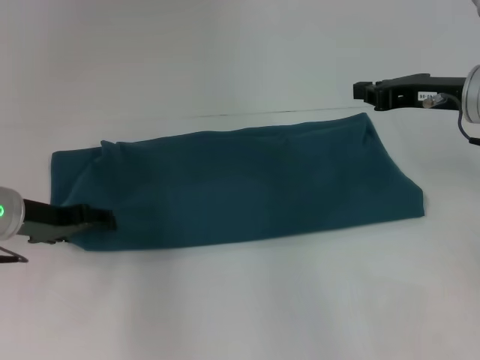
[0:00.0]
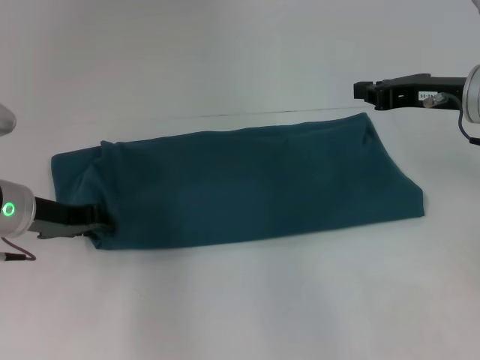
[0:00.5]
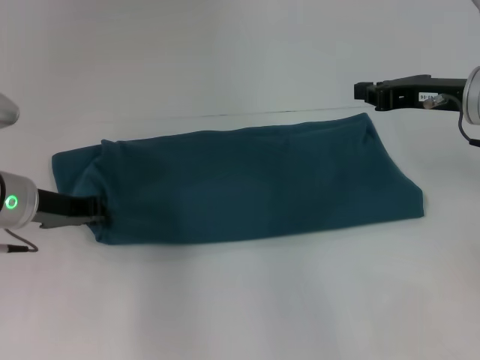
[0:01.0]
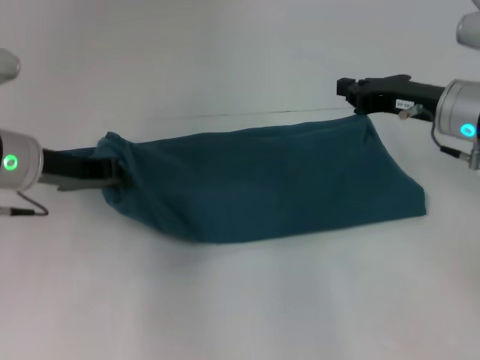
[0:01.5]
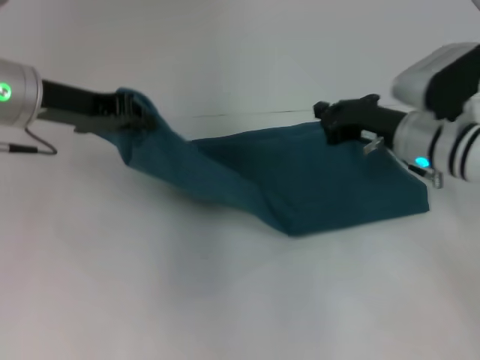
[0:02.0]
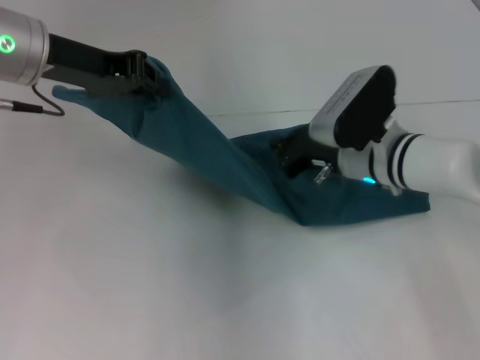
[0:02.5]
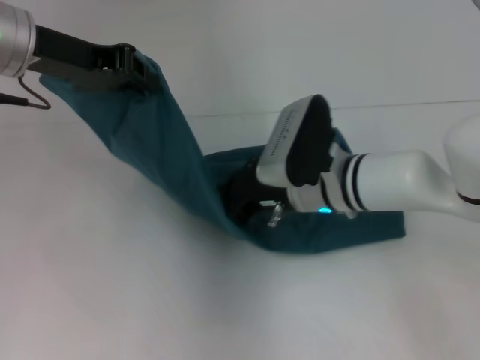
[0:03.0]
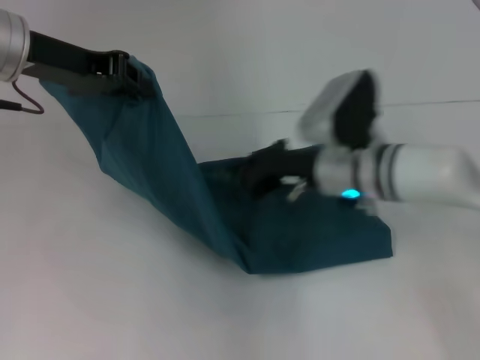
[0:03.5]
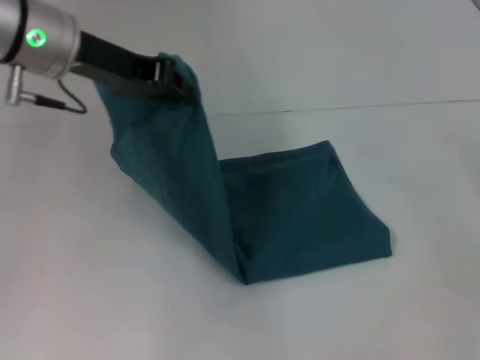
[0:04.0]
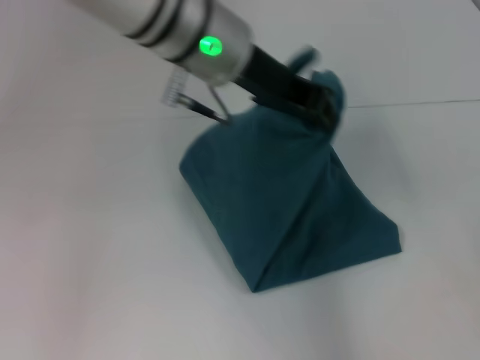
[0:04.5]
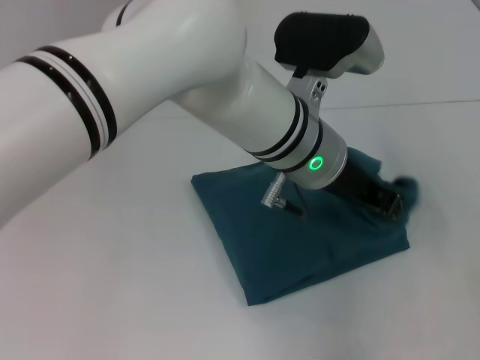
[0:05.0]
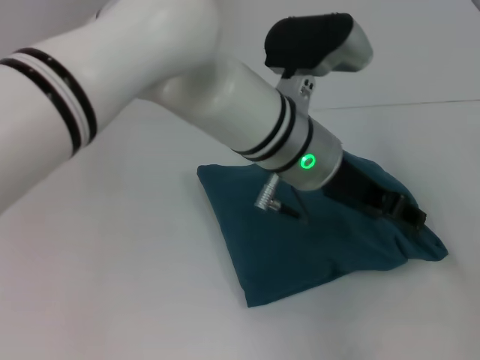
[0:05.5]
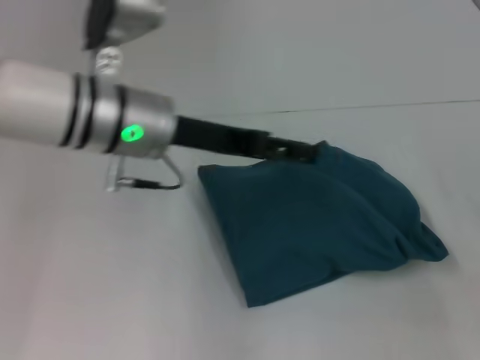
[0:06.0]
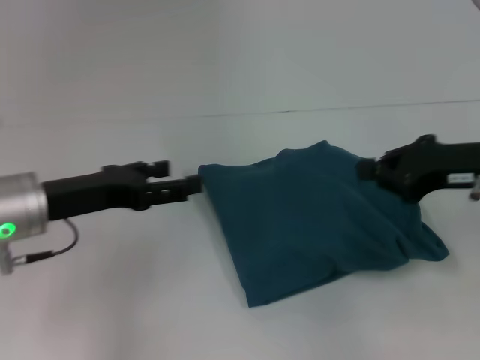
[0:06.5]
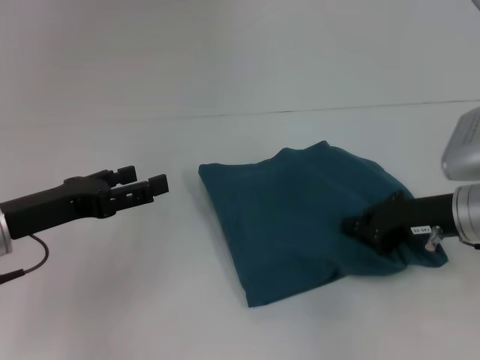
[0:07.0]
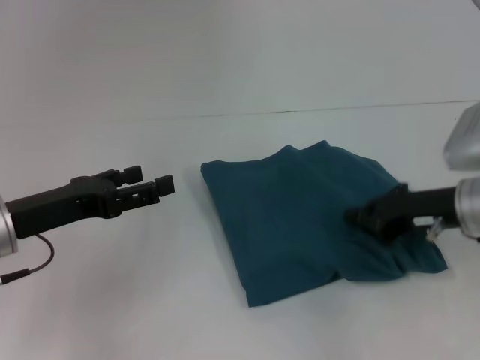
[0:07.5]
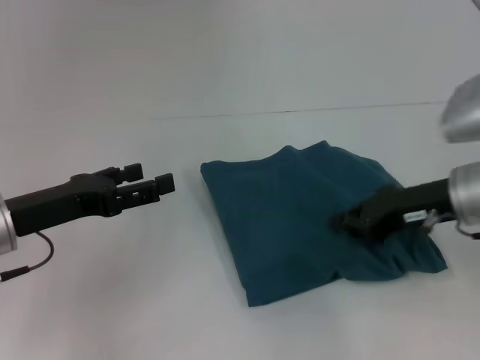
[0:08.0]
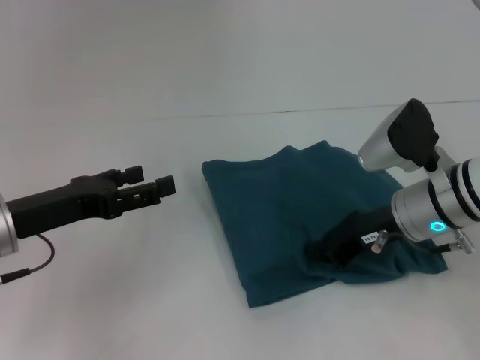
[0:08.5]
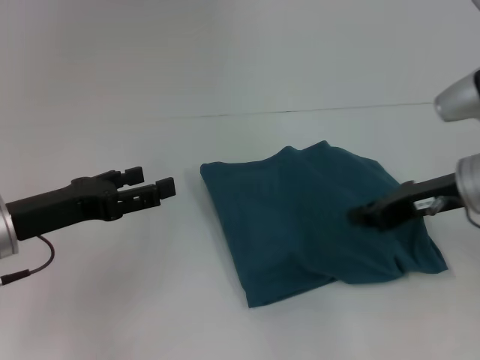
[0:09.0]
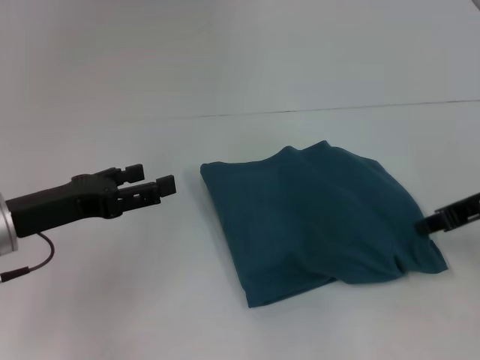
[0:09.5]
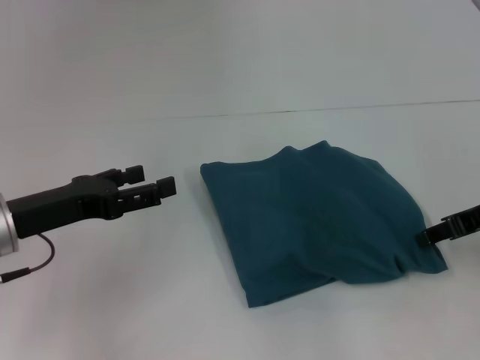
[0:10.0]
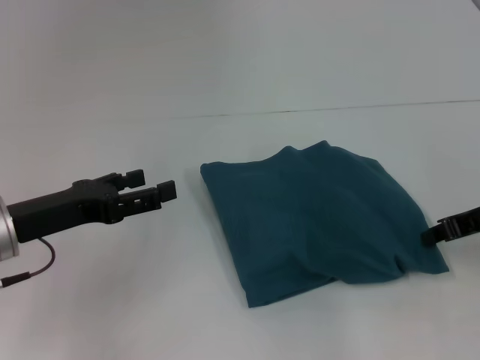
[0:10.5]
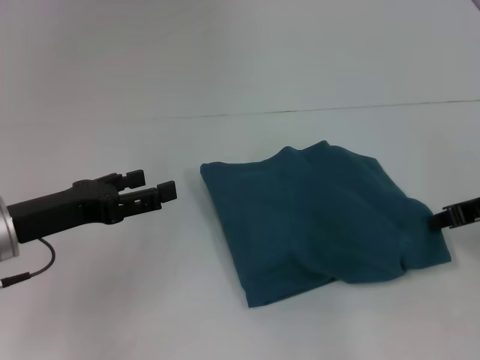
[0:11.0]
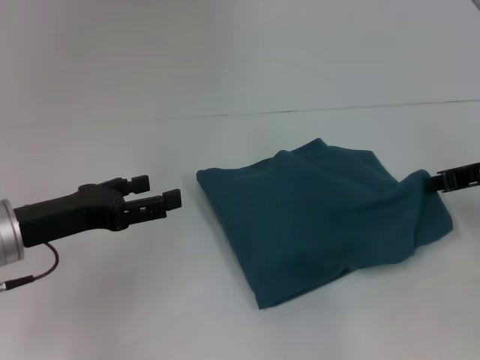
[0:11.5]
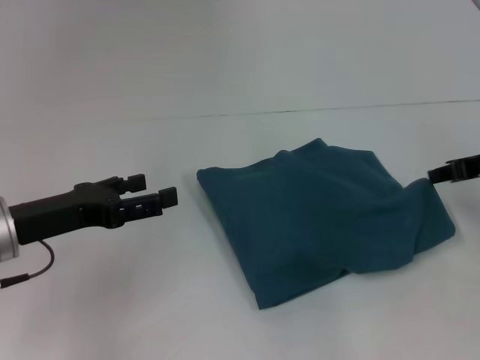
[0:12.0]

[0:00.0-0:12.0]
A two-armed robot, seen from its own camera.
Step, 0:00.0 to 0:03.0: Press the middle of the clothes with your right hand.
Step, 0:03.5 to 0:05.0: Fold the clothes to the left.
0:00.0 to 0:02.0: The right gripper heads downward, covering approximately 10 cm, while the left gripper heads upward, covering approximately 10 cm, and closes up.
0:02.0 to 0:04.0: The right gripper goes about 20 cm to the right and backward. Meanwhile the left gripper moves about 5 cm.
0:04.0 to 0:06.0: The left gripper goes some 5 cm downward, goes to the right and returns, some 20 cm each way, and opens.
0:06.0 to 0:08.0: The left gripper goes about 20 cm to the left, downward and backward, while the right gripper goes some 15 cm to the left.
0:08.0 to 0:10.0: The right gripper shifts some 5 cm to the right, and opens up.
0:10.0 to 0:12.0: The right gripper closes its fingers.

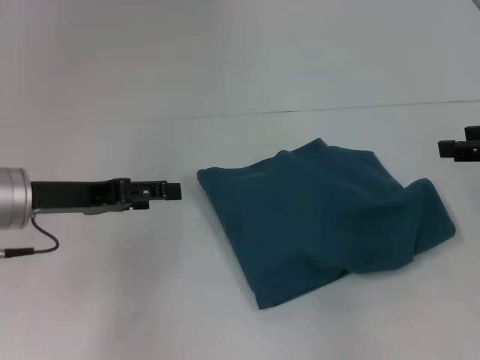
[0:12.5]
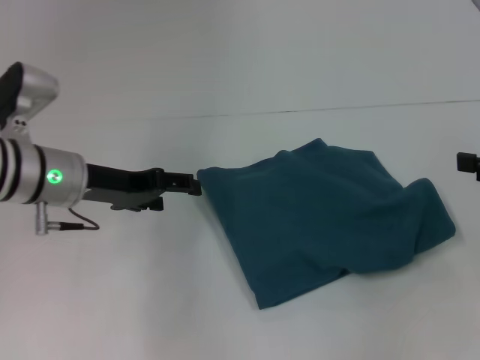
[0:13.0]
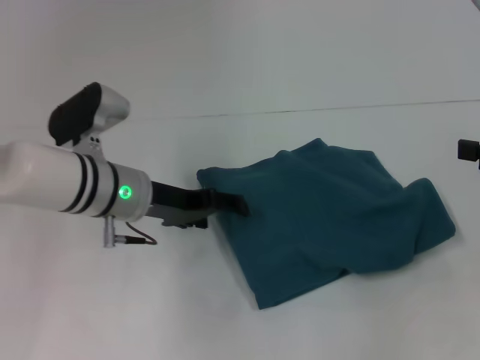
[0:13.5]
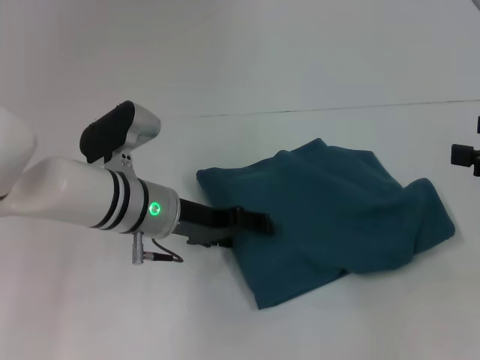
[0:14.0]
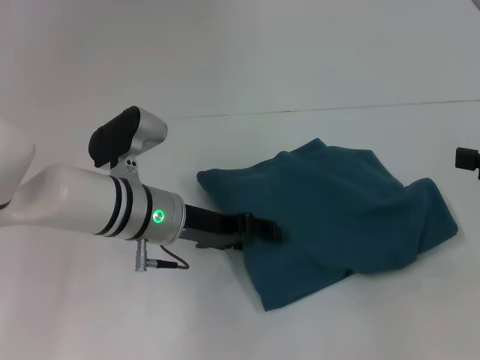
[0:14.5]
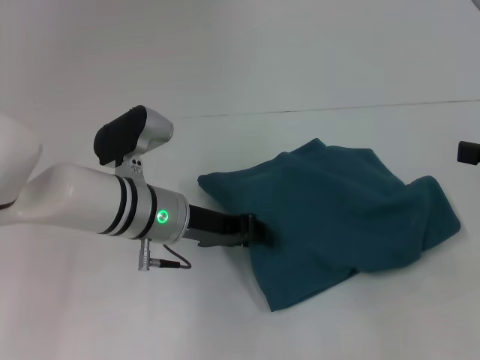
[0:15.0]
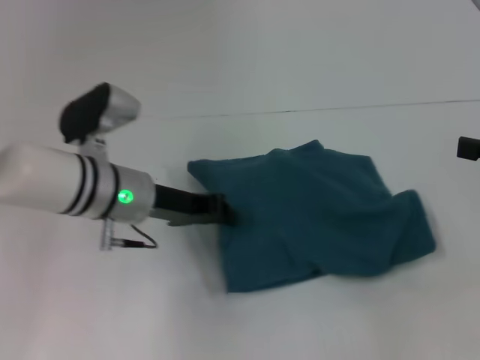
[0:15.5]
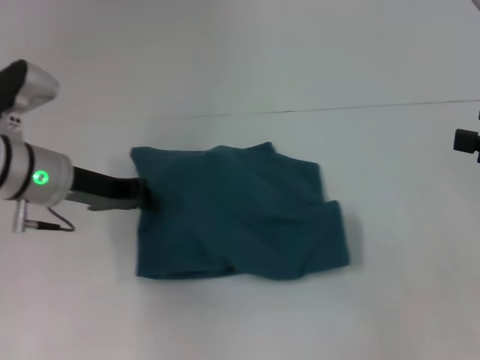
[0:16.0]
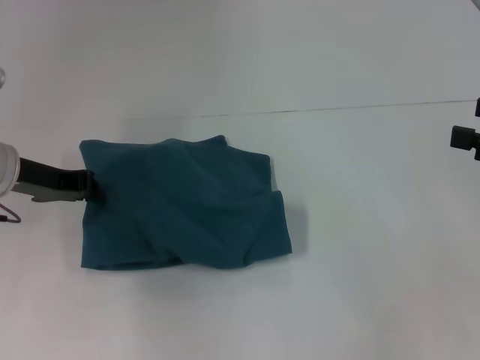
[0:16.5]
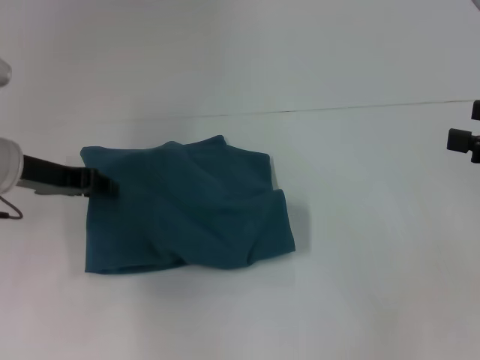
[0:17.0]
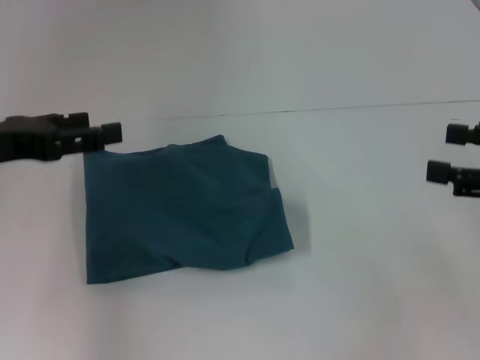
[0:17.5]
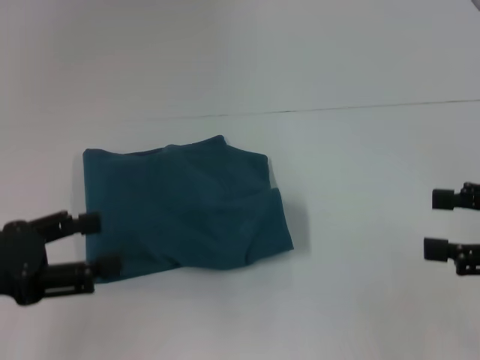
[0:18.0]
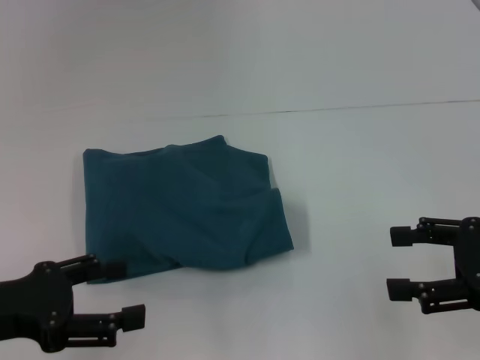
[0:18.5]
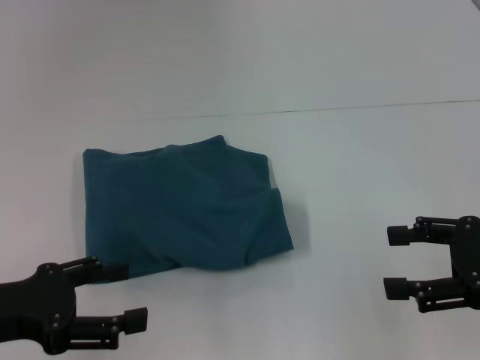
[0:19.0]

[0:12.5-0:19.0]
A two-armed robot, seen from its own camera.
0:12.5 to 0:14.5: The right gripper travels backward by approximately 5 cm, and opens up, while the left gripper moves to the right, about 15 cm.
0:14.5 to 0:17.0: The left gripper shifts about 15 cm to the left and upward, and closes.
0:17.0 to 0:19.0: The right gripper changes place by approximately 5 cm. Meanwhile the left gripper goes some 15 cm backward, and opens its fingers.

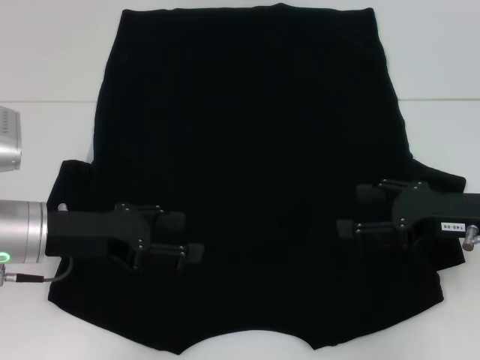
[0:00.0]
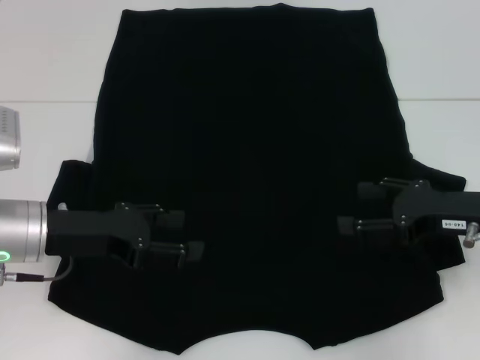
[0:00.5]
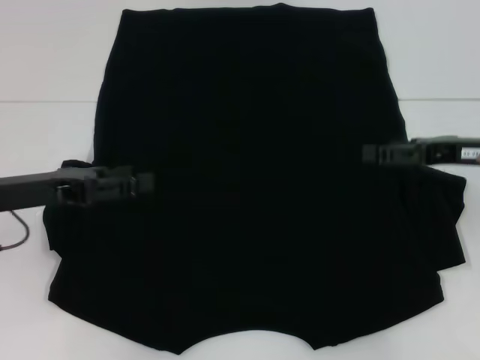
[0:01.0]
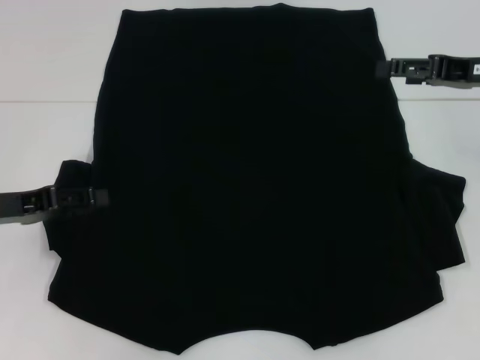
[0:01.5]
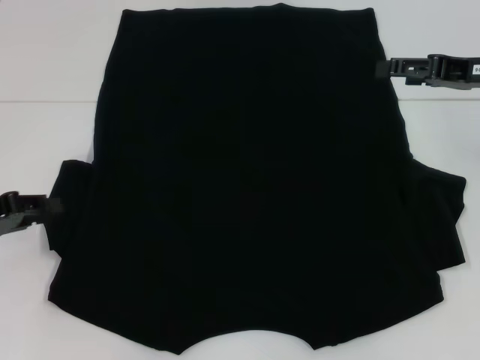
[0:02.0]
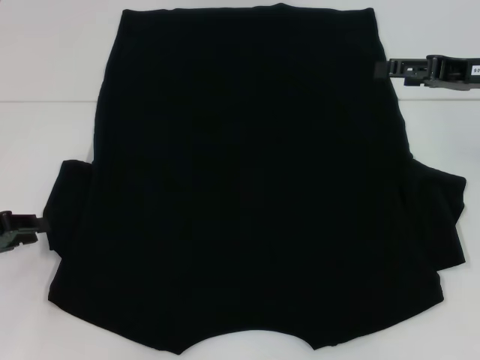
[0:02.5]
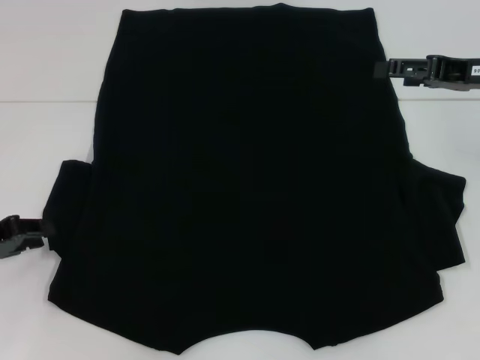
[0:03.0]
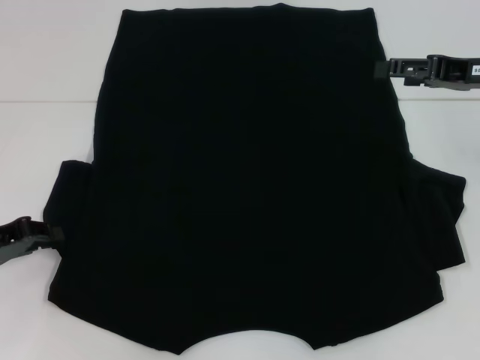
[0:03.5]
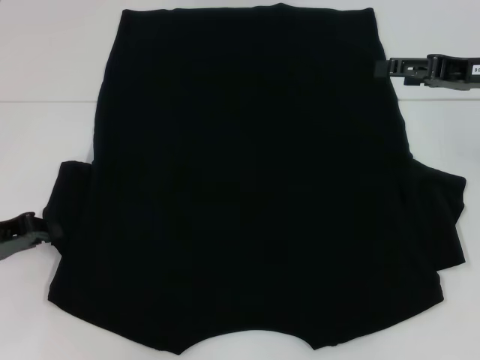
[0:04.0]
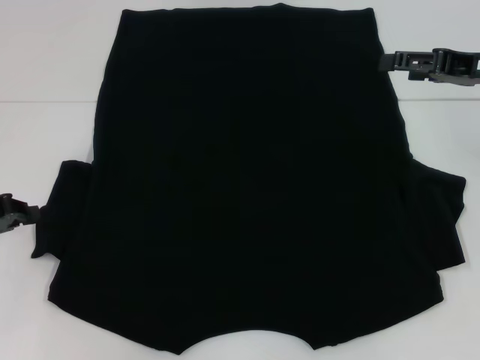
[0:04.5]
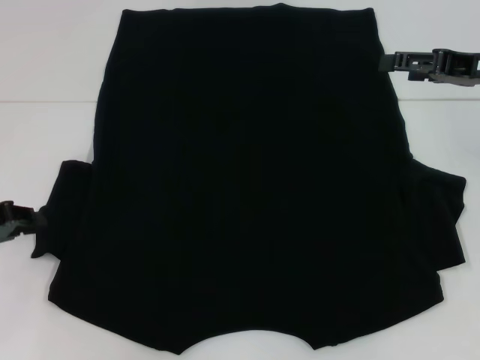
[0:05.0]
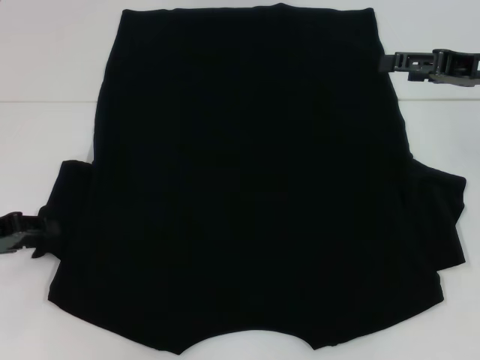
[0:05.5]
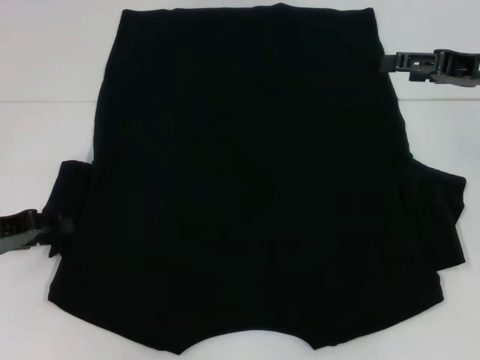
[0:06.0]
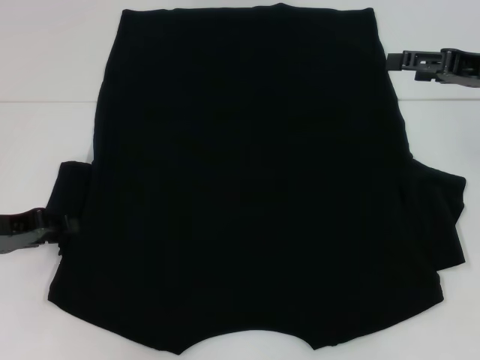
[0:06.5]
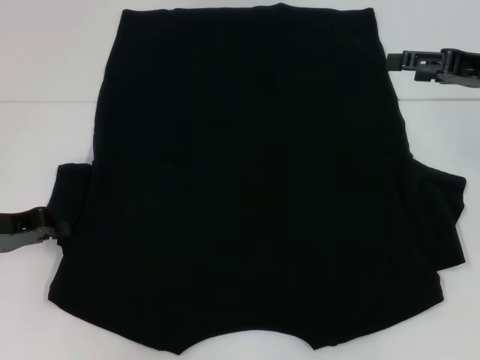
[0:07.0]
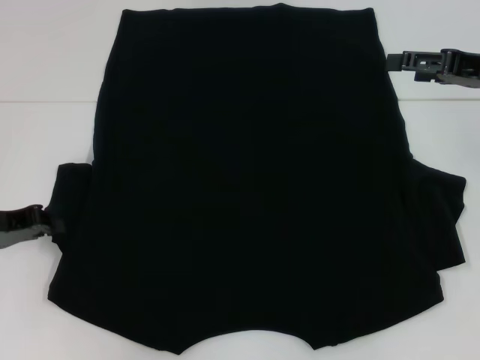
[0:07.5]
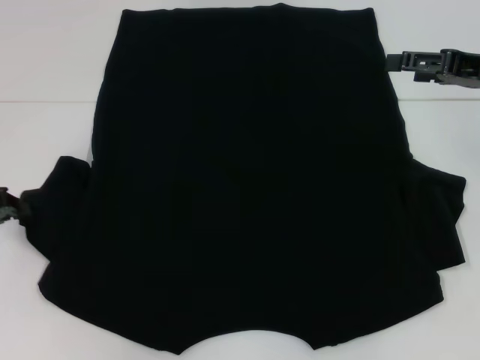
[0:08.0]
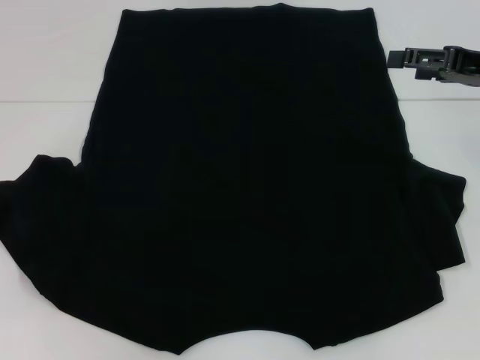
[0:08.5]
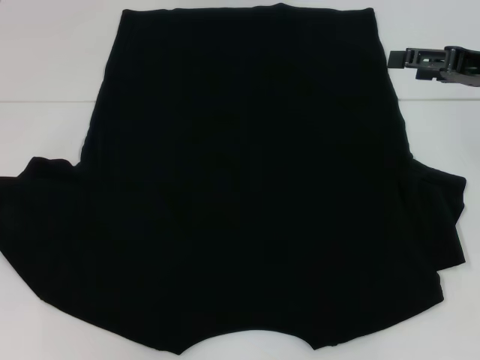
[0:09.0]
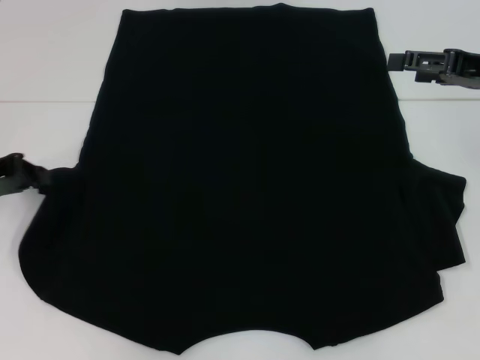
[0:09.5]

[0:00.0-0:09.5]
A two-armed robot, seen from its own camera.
0:00.0 to 0:02.0: The left gripper moves to the left, roughly 10 cm, and closes. Meanwhile the right gripper moves forward and upward, approximately 15 cm.
0:02.0 to 0:04.0: There are only small adjustments of the grippers.
0:04.0 to 0:05.5: The left gripper opens its fingers.
0:05.5 to 0:07.5: The left gripper closes.
0:07.5 to 0:09.5: The left gripper moves approximately 5 cm.
